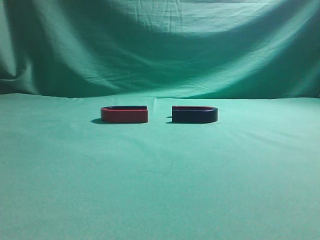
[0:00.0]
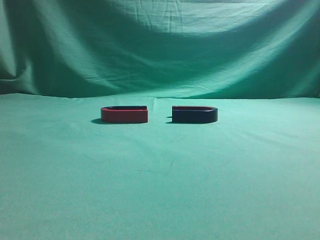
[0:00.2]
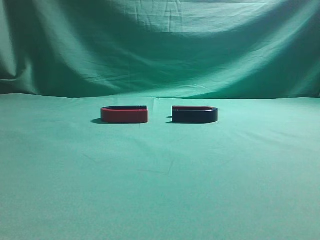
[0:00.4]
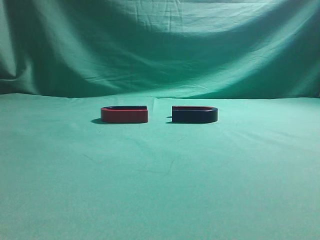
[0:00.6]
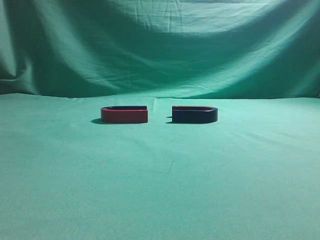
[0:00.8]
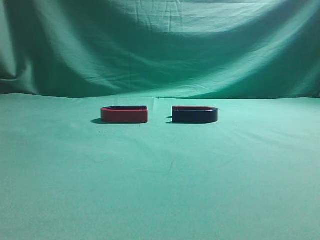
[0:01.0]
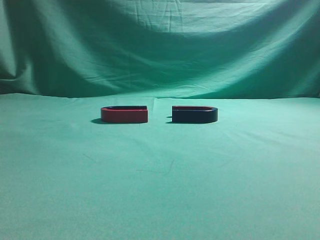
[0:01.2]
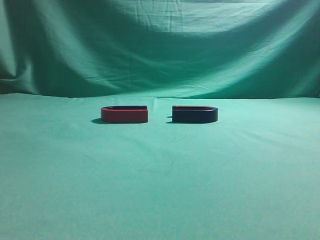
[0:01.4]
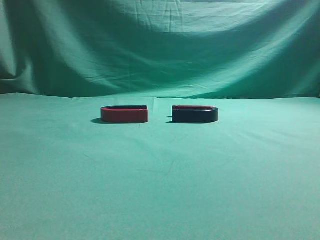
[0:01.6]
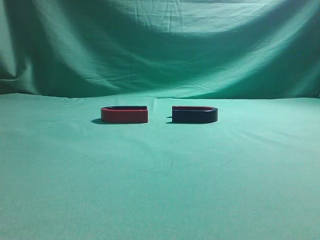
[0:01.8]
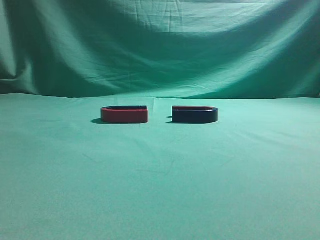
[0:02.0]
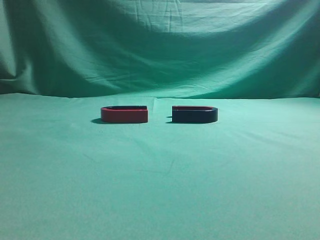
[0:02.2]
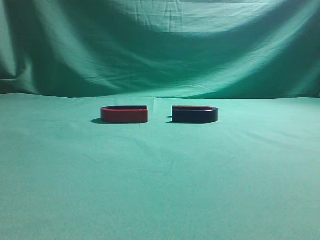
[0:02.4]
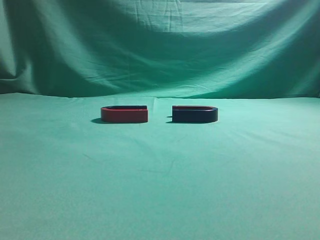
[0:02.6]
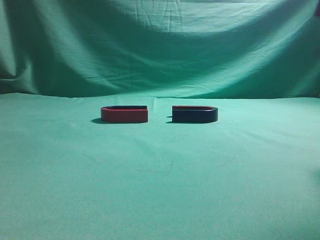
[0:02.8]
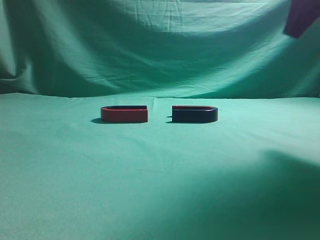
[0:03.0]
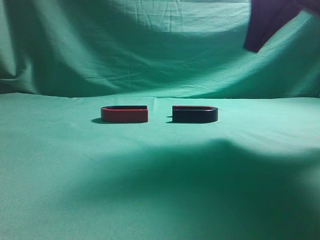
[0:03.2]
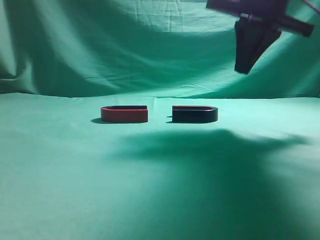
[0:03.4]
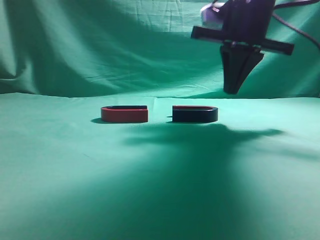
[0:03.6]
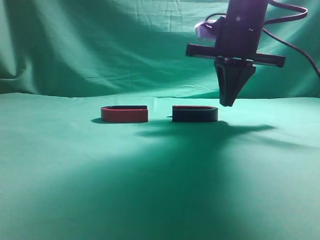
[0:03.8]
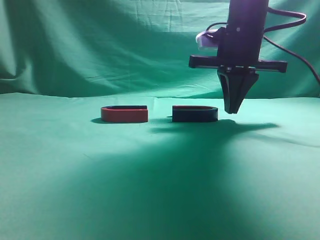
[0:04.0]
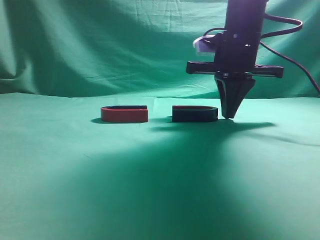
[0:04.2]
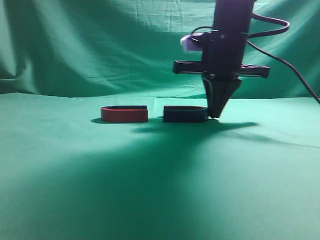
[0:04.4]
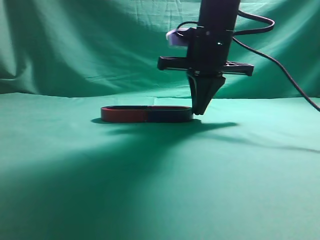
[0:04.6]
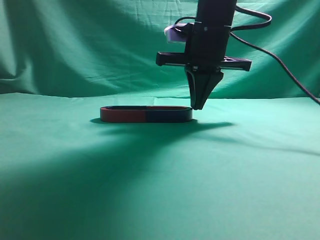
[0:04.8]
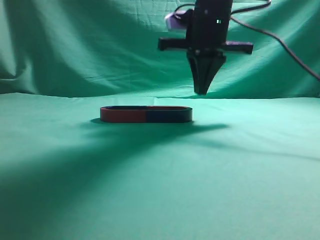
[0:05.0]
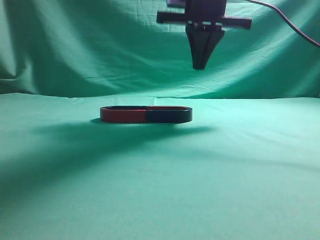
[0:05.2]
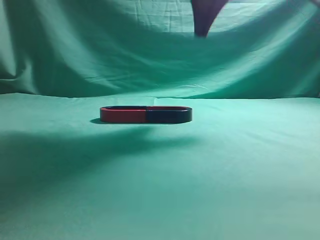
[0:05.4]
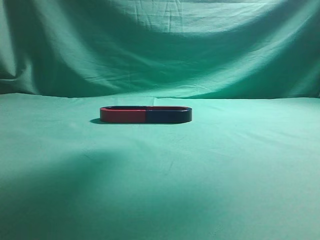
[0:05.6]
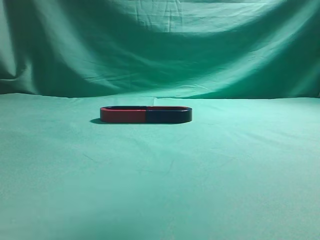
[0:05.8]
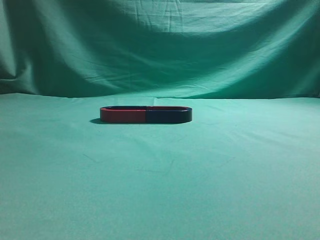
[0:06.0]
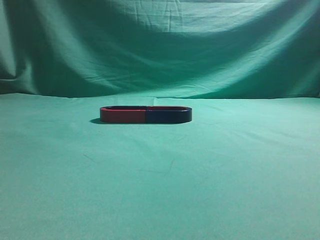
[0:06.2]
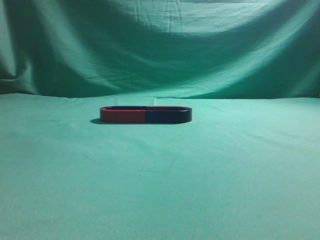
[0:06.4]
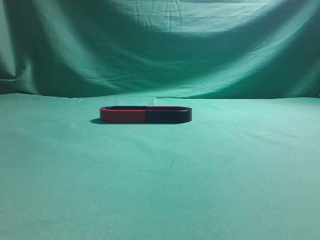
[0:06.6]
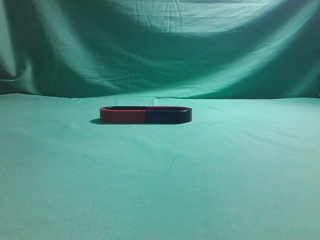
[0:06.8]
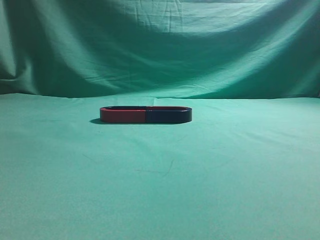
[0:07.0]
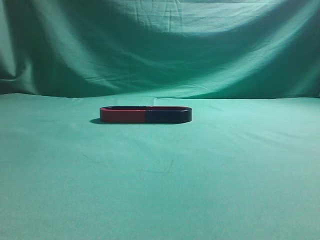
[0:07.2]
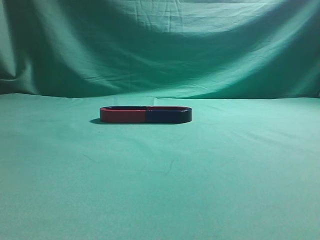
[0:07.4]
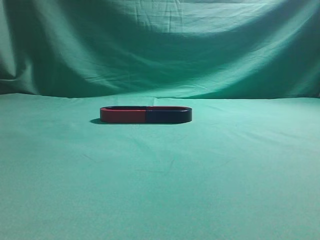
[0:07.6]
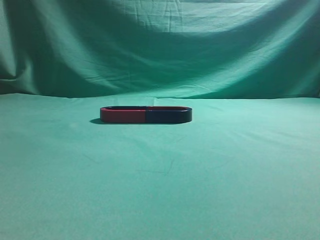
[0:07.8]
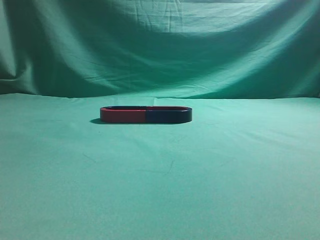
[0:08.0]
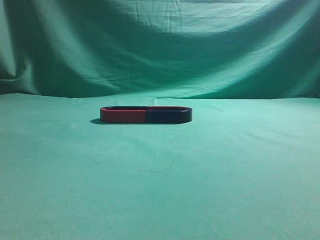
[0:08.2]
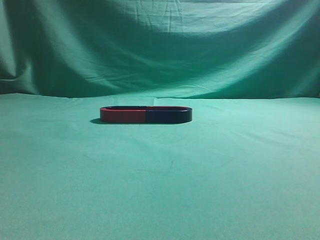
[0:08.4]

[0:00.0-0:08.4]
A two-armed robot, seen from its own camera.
Task of the whole recording: push the magnet on the table from its original position to another position.
Step, 0:00.0 to 0:04.8: Push the magnet on the right to connect the magnet on the left.
0:01.4 to 0:02.8: The right gripper travels forward and upward by approximately 25 cm.
0:02.8 to 0:04.2: The right gripper shifts some 20 cm forward, downward and to the left.
0:04.2 to 0:05.6: The right gripper is displaced upward by some 20 cm.
0:05.6 to 0:07.0: The right gripper moves backward and to the right, approximately 35 cm.
